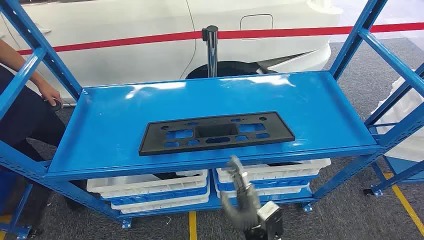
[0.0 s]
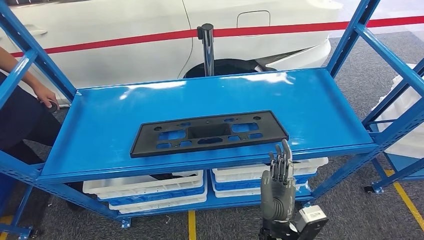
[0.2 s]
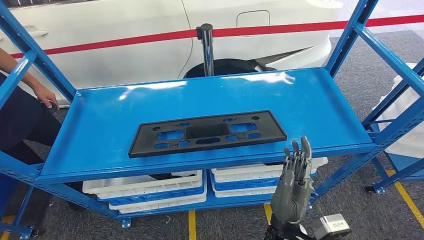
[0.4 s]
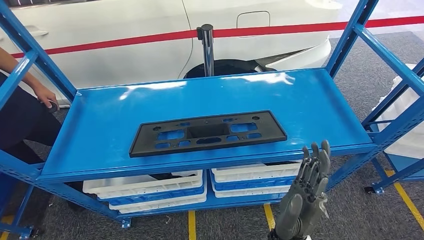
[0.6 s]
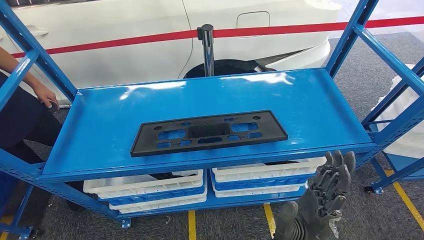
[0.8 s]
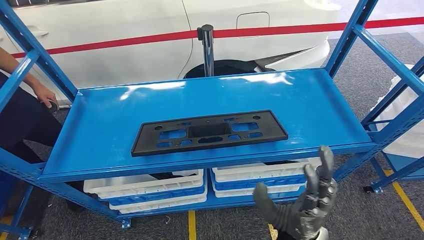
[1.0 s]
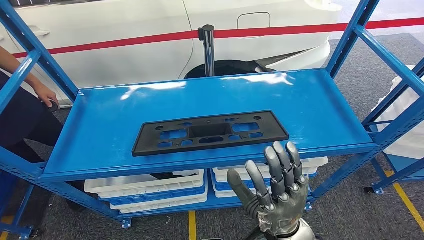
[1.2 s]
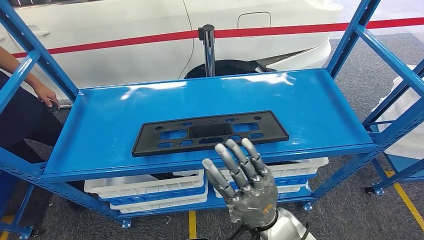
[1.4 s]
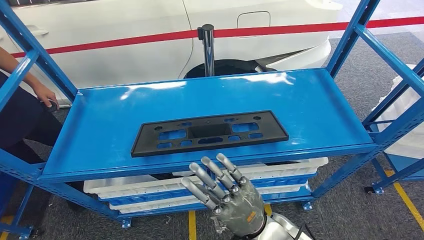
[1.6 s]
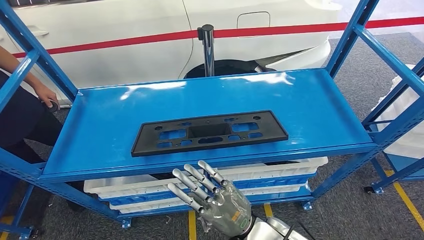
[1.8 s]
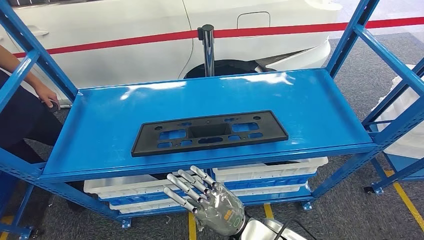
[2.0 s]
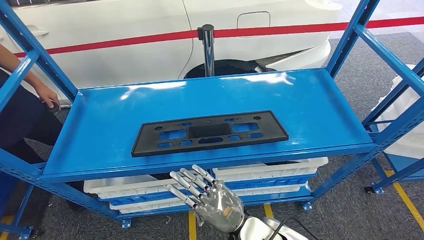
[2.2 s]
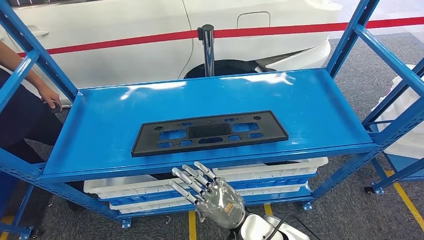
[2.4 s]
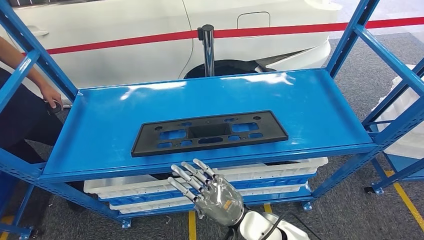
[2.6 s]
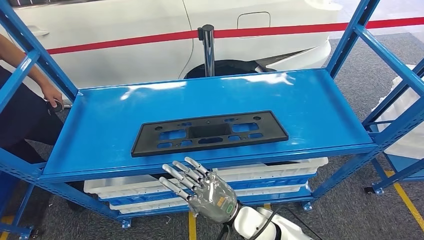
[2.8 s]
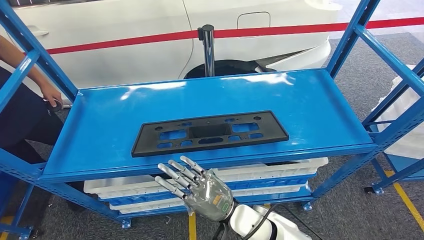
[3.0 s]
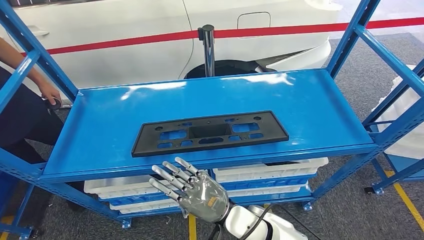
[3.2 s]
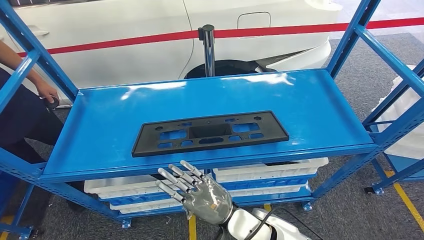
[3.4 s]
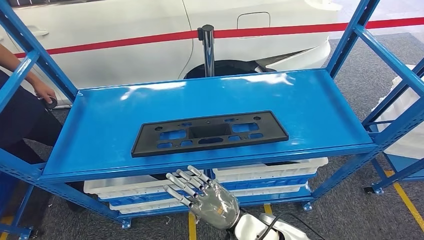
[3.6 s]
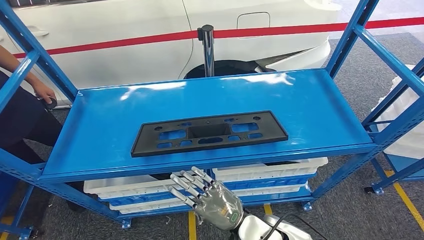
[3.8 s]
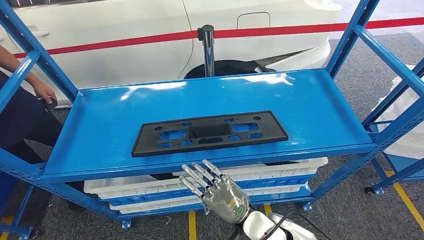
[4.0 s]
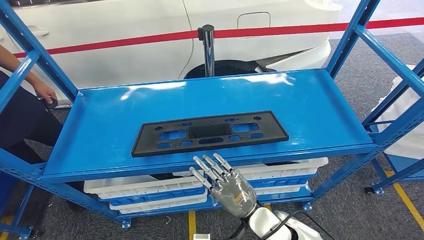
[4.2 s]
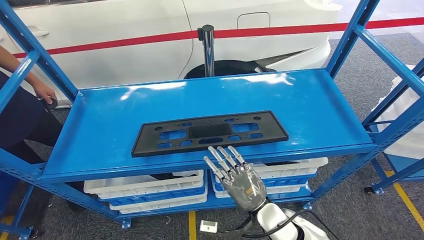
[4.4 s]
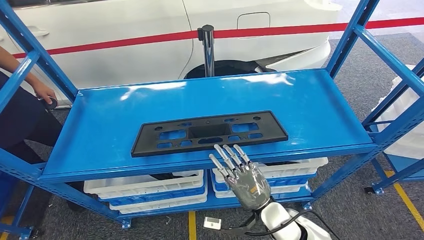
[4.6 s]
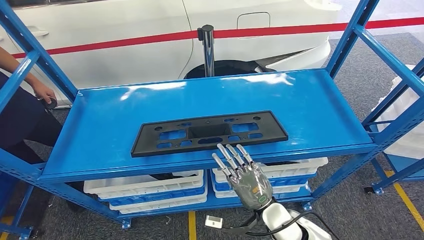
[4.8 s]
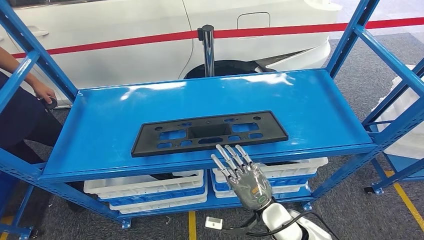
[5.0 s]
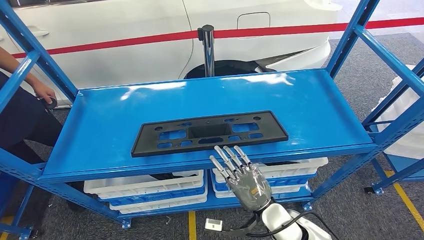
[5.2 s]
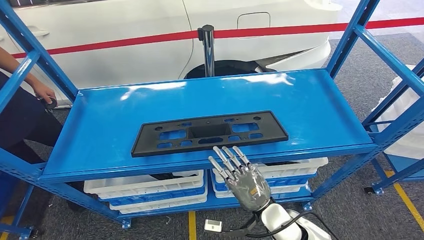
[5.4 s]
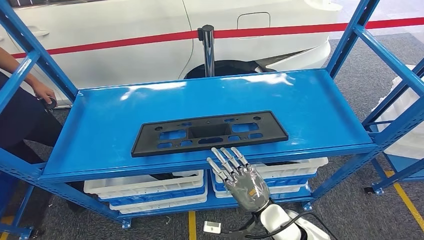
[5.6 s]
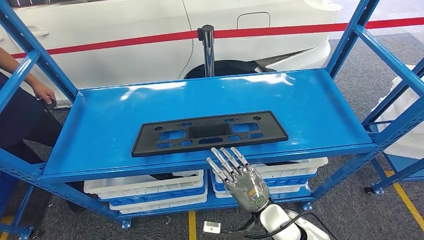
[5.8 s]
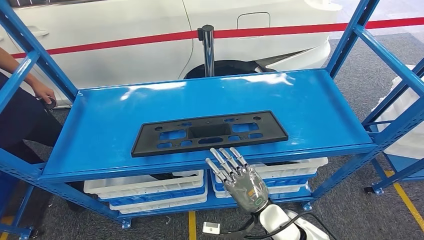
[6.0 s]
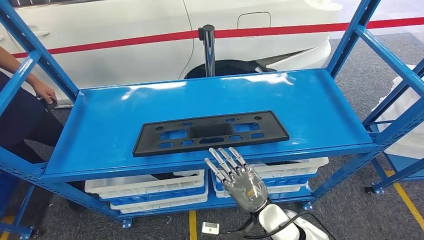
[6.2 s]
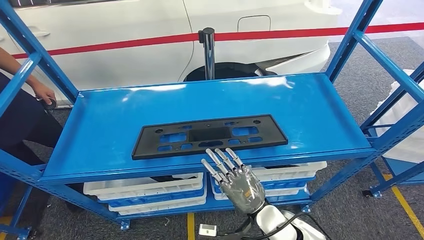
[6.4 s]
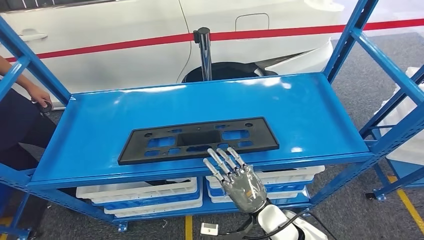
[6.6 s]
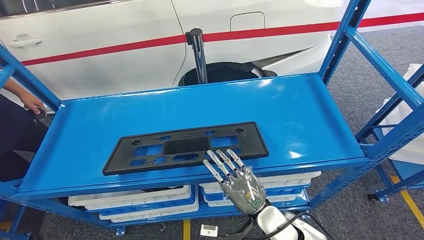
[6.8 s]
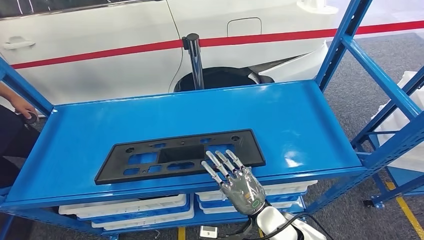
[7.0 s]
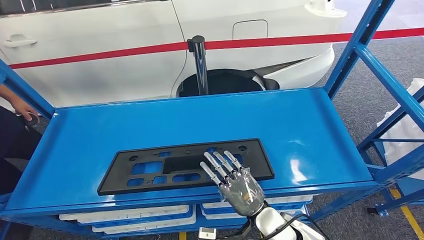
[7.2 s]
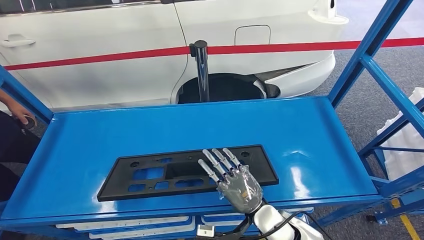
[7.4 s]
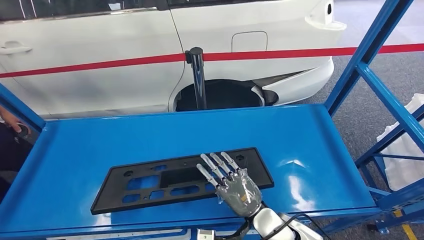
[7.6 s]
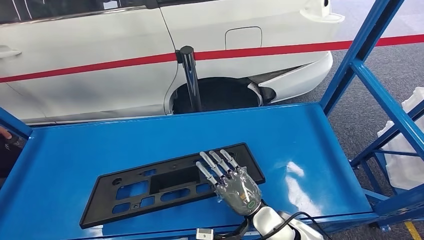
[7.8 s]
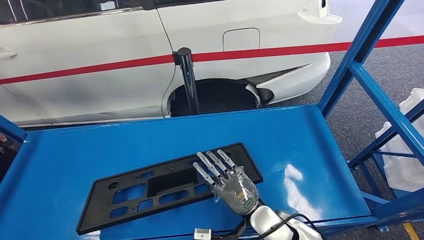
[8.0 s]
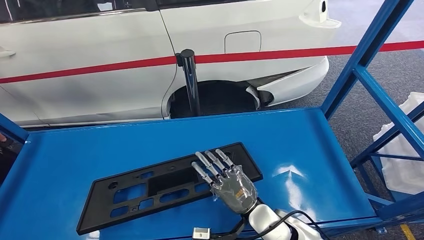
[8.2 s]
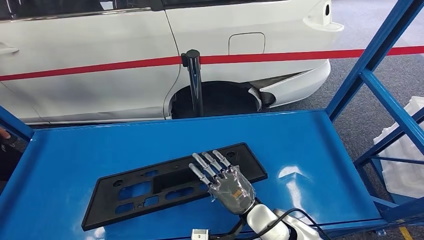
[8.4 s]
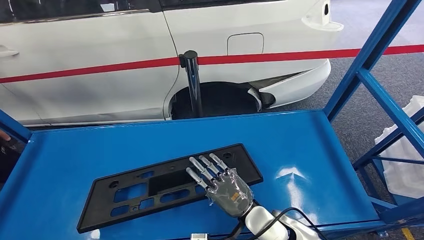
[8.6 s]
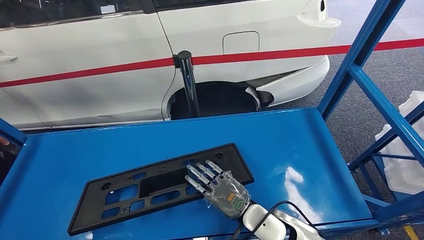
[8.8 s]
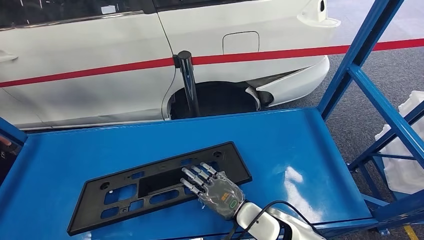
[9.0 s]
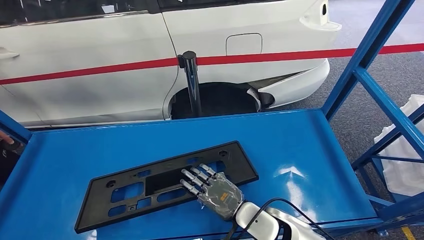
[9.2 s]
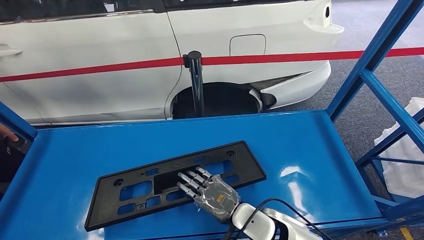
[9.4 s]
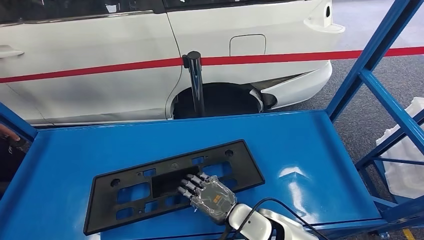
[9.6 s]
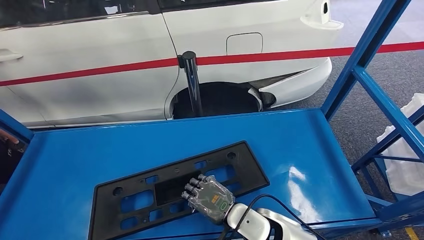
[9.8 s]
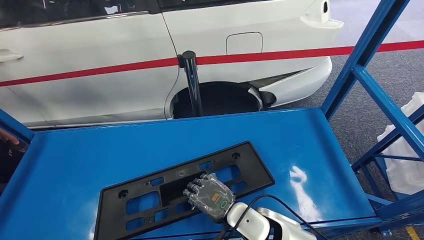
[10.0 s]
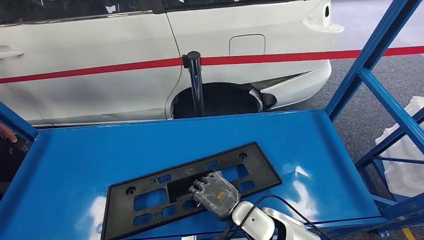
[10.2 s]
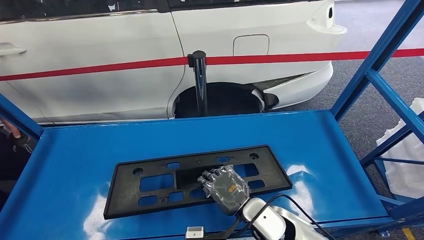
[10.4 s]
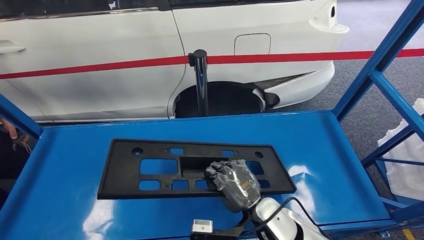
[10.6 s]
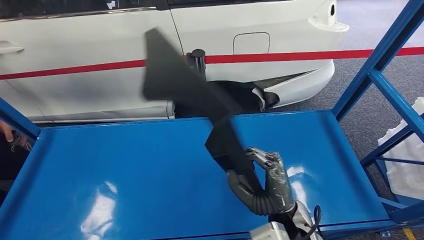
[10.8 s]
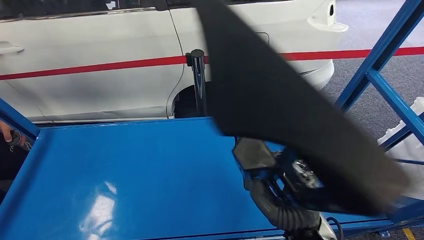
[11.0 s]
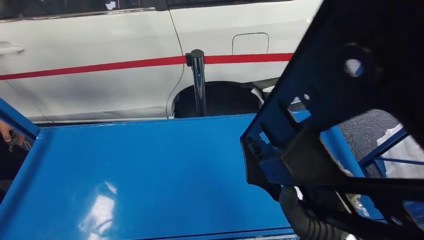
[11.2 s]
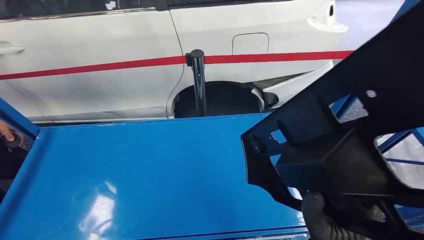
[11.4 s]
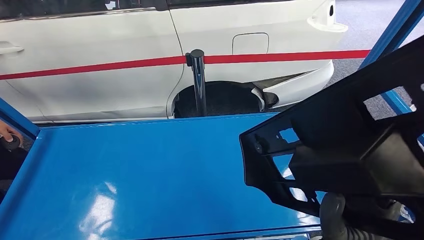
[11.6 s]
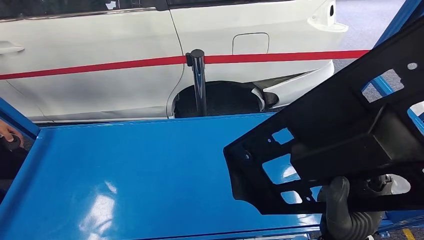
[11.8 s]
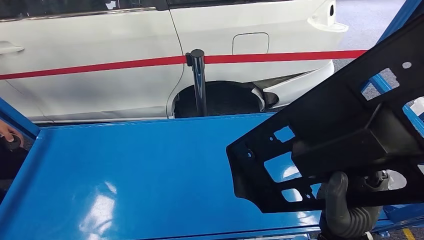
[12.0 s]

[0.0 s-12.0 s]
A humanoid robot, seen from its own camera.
Step, 0.0 to 11.4 s: Pick up the large material from the shelf.
1.6 to 3.0 s: The right hand ends up some 5 cm from where it was.
3.0 to 4.4 s: The right hand shifts some 5 cm to the right.
4.4 to 6.0 s: The hands make only small movements.

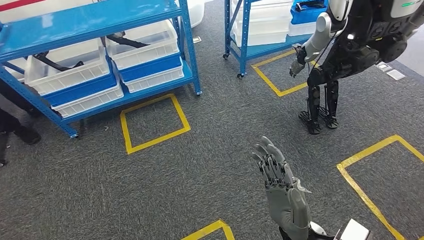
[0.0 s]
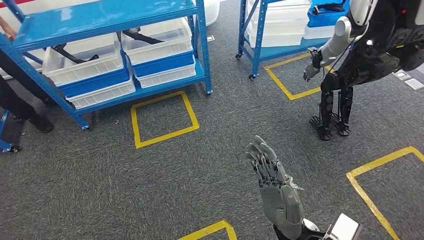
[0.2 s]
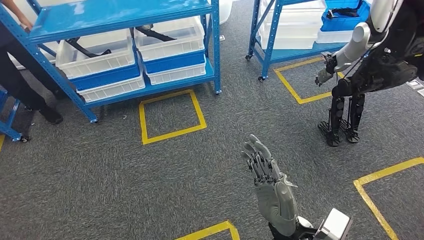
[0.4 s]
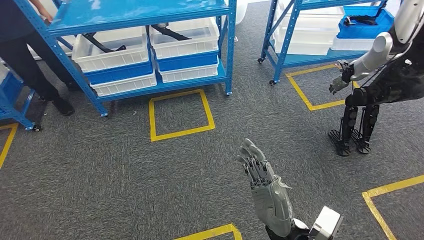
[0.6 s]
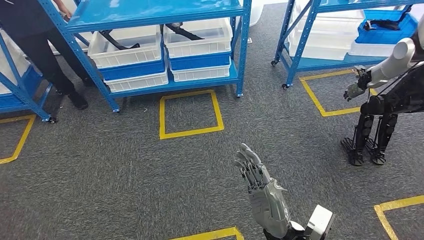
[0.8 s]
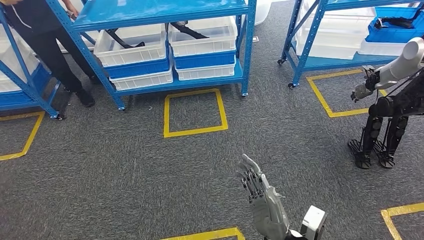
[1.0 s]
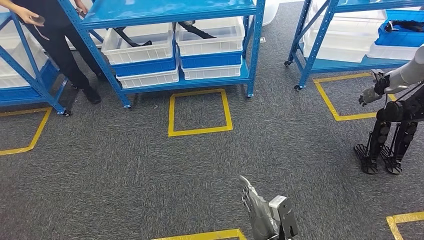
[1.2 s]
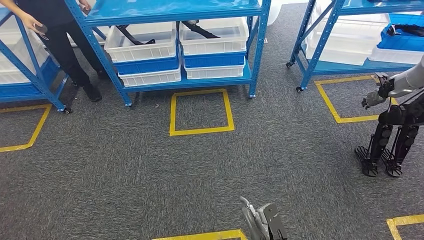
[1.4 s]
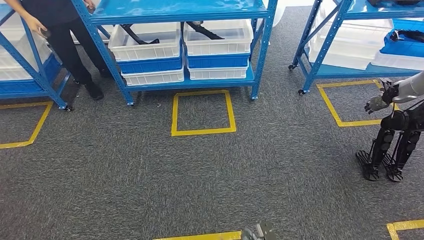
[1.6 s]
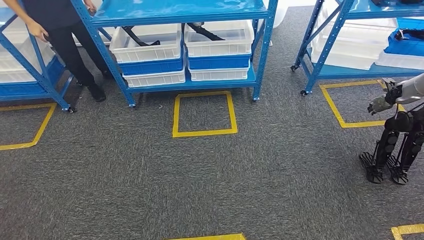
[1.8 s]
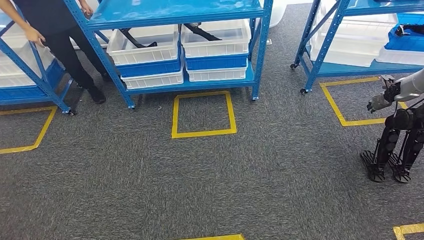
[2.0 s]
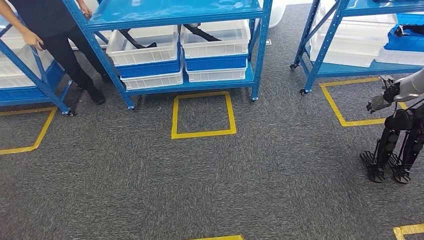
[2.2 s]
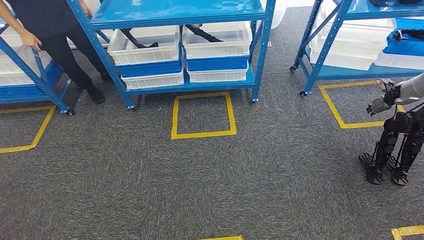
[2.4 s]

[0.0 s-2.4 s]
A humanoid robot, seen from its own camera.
Step, 0.0 to 2.4 s: Move to the initial position of the shelf.
